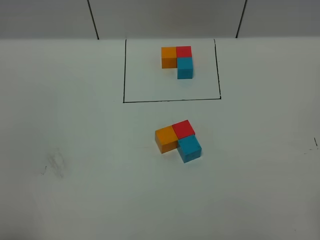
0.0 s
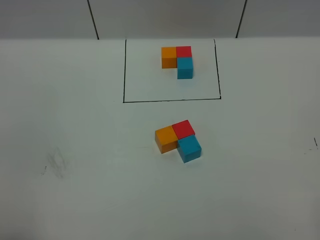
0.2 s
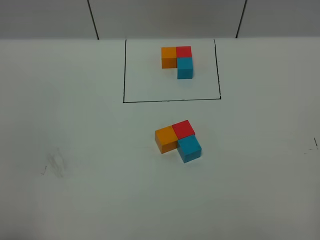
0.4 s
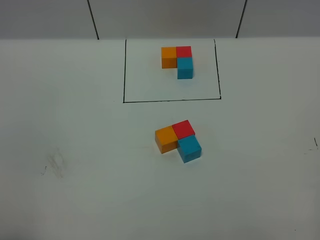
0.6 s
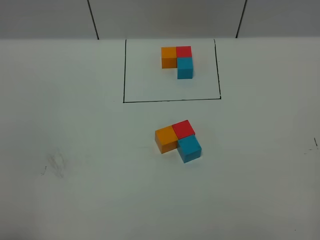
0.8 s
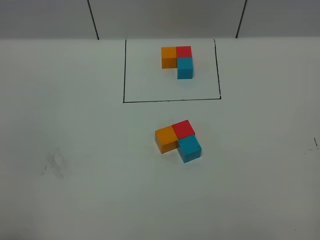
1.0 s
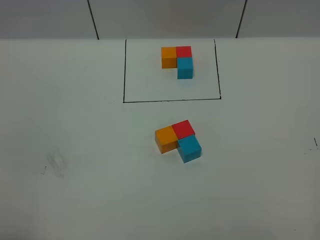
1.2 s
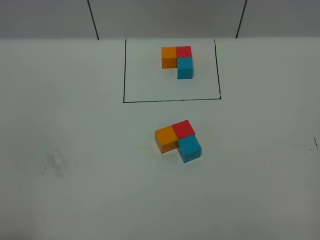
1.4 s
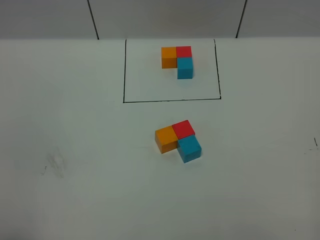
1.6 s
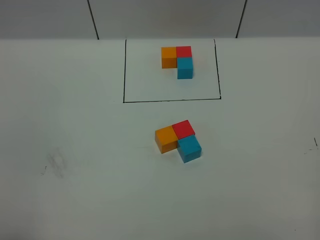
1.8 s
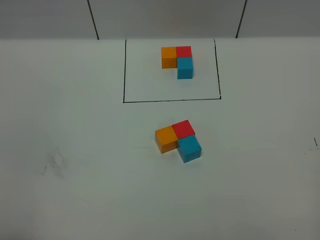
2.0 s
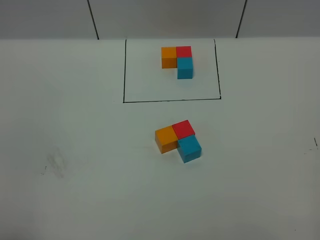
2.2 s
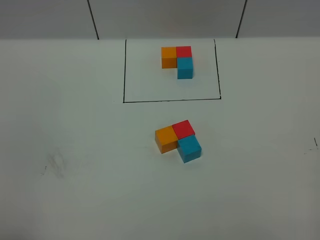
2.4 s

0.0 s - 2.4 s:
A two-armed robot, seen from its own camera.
Task of the whole recording: According to the building block template in front, assemble the scattered blocks together.
1.2 s - 2.4 s: Both grippers stay put.

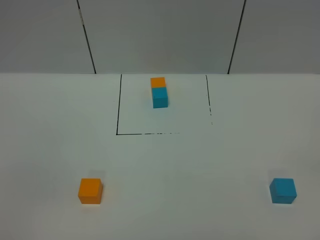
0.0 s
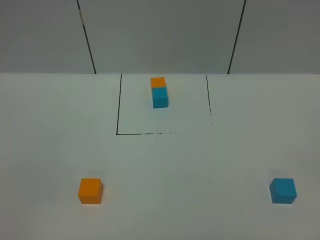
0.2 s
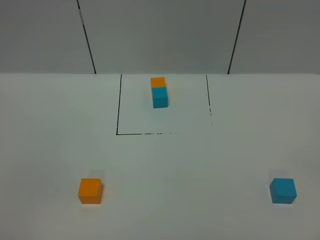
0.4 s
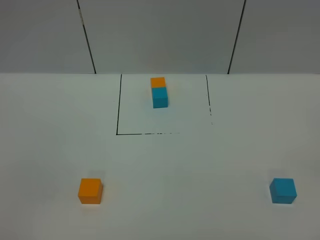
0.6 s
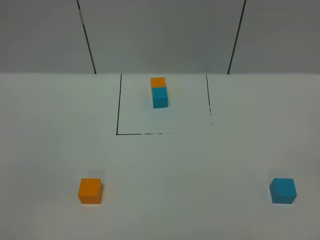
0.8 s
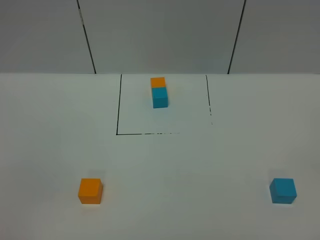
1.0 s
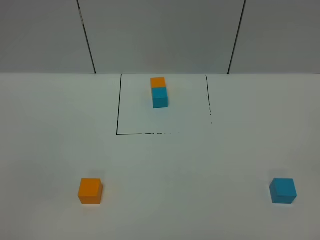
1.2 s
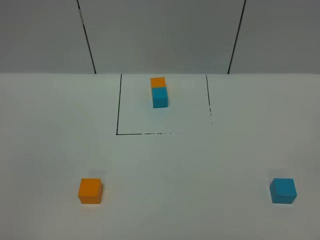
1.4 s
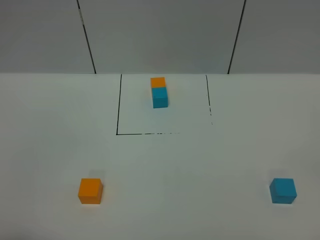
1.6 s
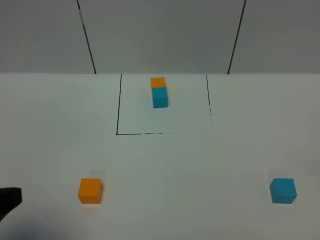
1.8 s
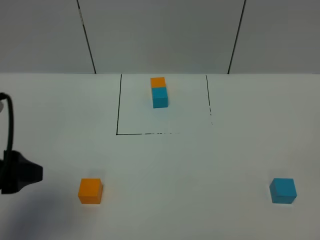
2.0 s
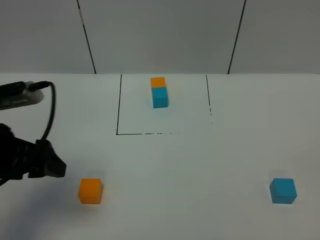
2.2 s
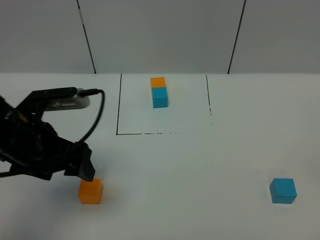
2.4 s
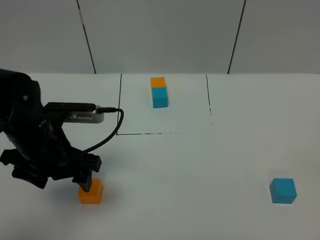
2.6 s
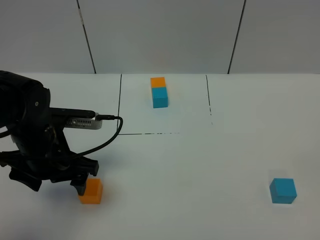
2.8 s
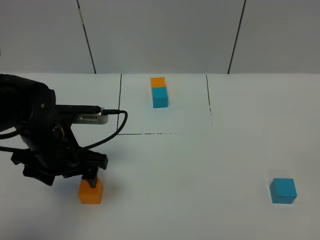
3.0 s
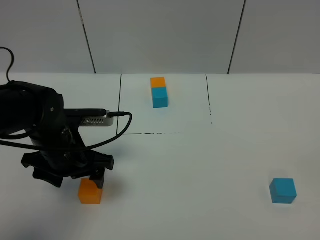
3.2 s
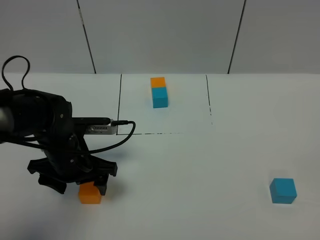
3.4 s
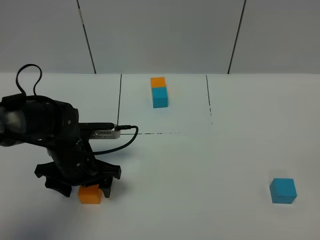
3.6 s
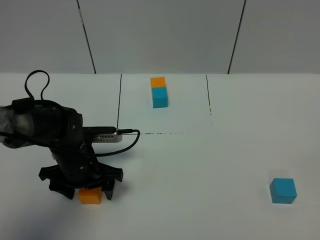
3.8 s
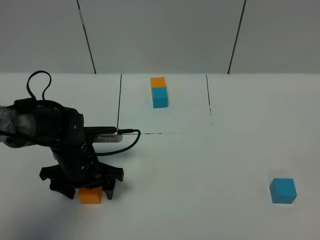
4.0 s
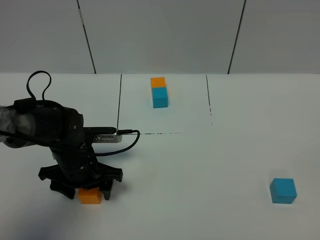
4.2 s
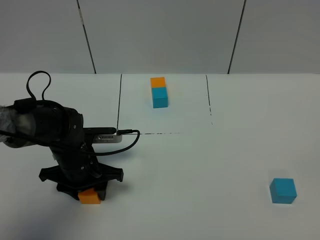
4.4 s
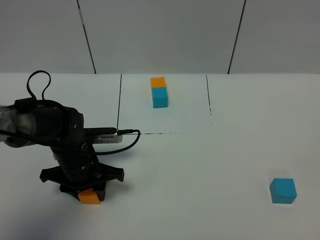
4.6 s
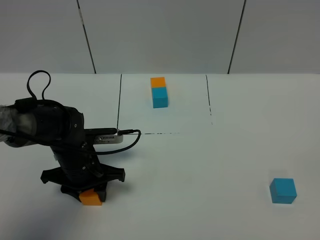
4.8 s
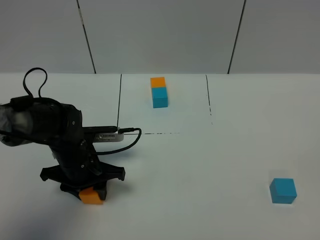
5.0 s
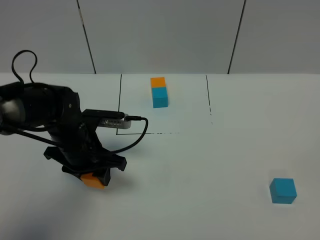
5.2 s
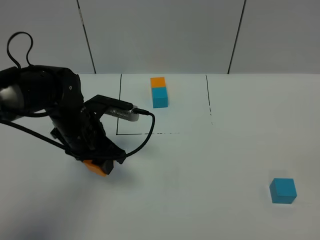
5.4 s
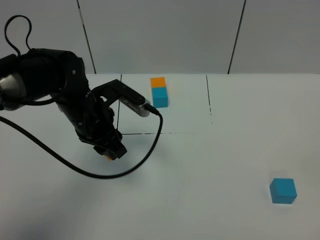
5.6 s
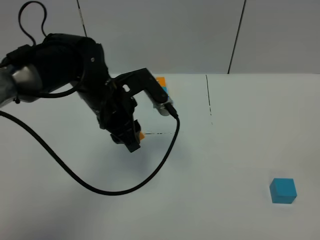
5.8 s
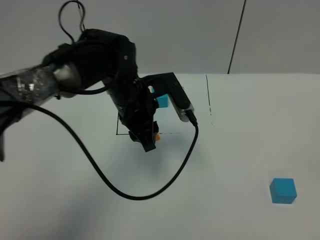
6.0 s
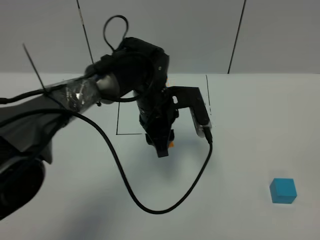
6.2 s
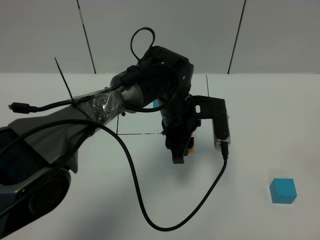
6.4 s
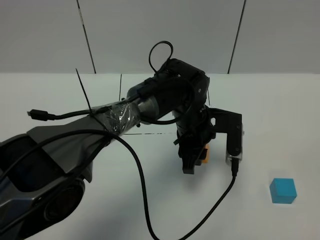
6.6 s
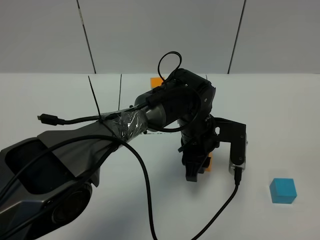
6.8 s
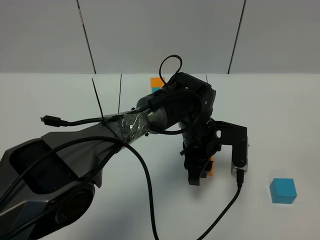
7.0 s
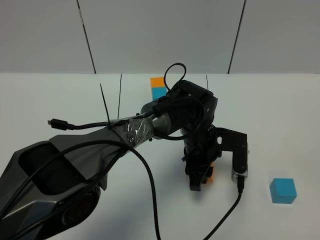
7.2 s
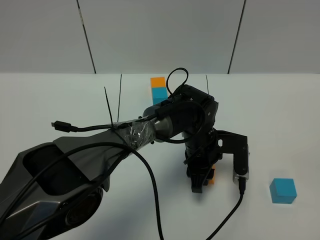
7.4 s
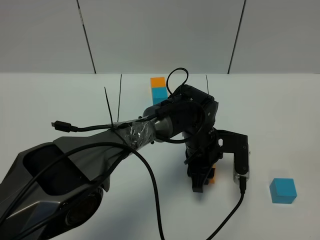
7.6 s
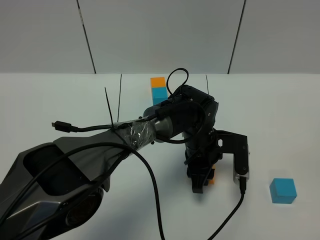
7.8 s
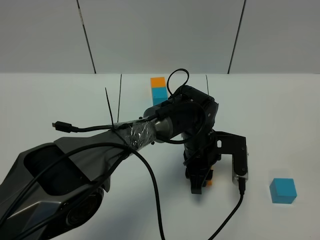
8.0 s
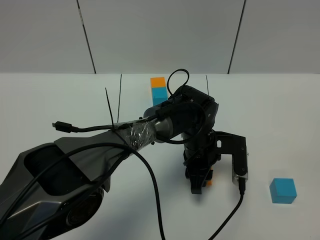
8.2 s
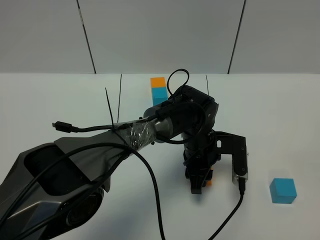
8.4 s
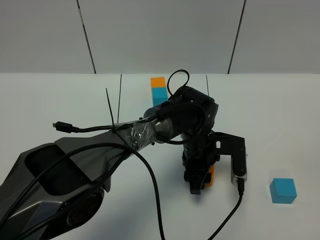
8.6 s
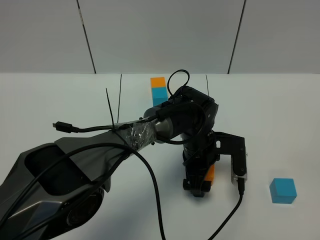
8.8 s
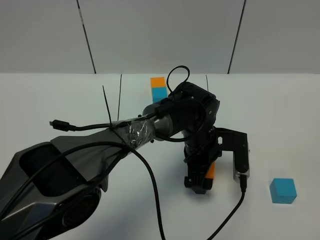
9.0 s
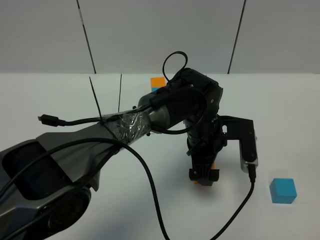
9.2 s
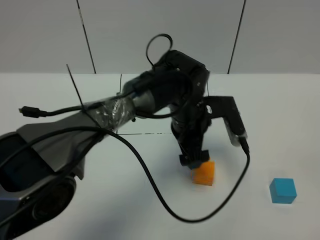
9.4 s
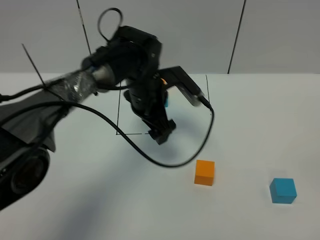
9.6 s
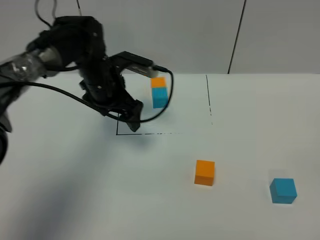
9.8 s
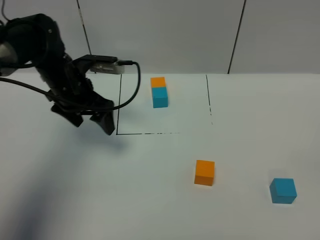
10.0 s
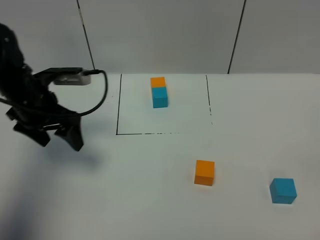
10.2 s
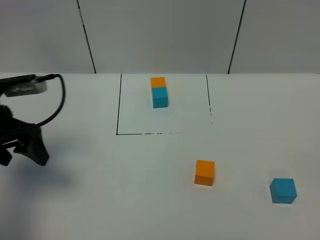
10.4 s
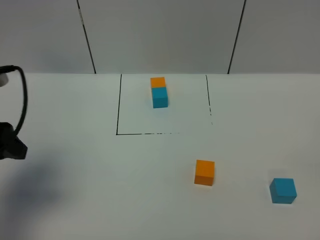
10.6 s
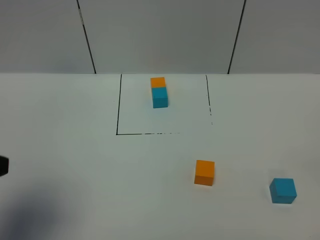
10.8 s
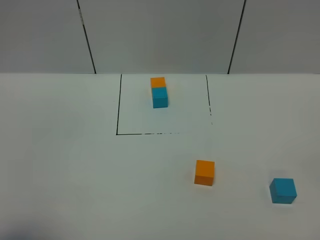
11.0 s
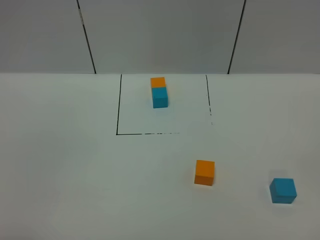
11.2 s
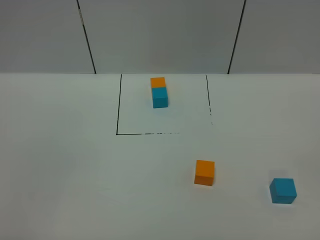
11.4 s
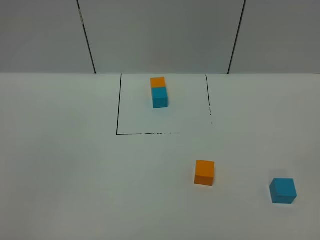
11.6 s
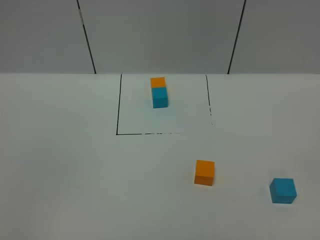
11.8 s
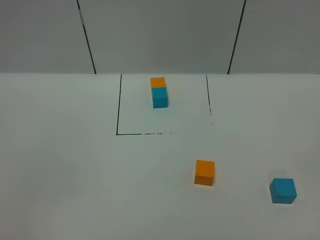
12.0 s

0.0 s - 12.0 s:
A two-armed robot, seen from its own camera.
Task of the whole recording: According to the building block template in front, assemble the scattered blocks together.
Step, 1.8 s - 9.4 s: Put the orange cube in the center of the table.
1.6 s - 3.0 s: The left gripper moves forward, downward and to the right, roughly 30 cm.
3.0 s - 4.4 s: The left gripper travels downward by approximately 10 cm, and closes up.
4.4 s - 6.0 s: The left gripper is displaced to the right, upward and forward by some 15 cm.
6.0 s - 7.6 s: The left gripper moves to the right and downward, about 15 cm.
7.6 s - 9.0 s: The left gripper opens.
9.0 s - 10.4 s: The left gripper heads to the left, covering approximately 35 cm.
10.4 s - 12.0 s: The left gripper goes approximately 30 cm backward.

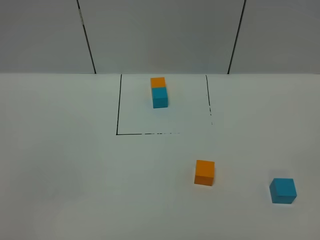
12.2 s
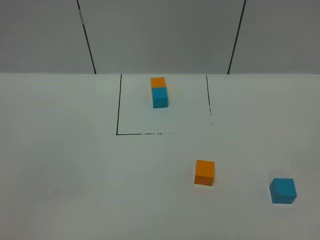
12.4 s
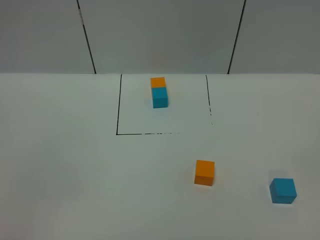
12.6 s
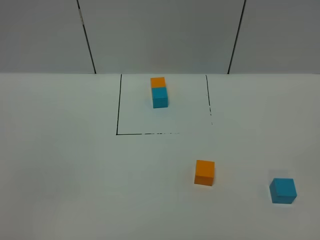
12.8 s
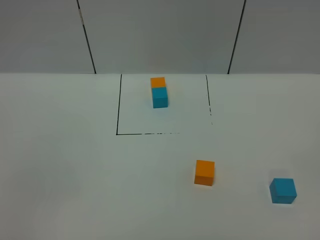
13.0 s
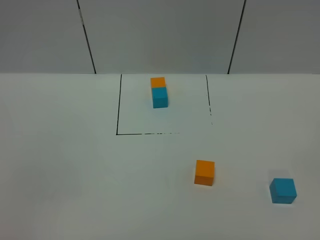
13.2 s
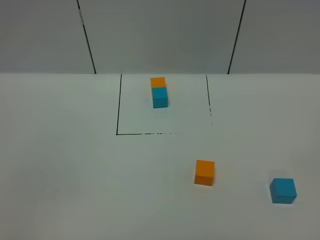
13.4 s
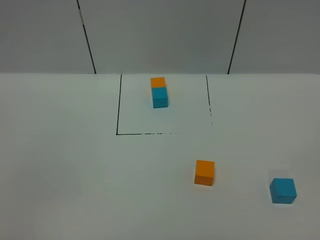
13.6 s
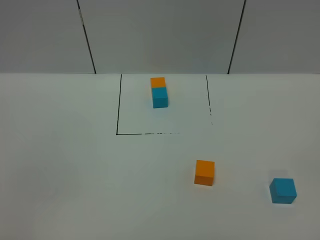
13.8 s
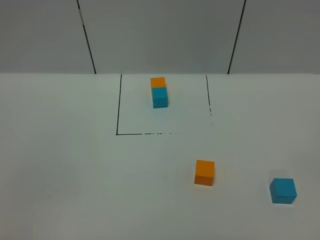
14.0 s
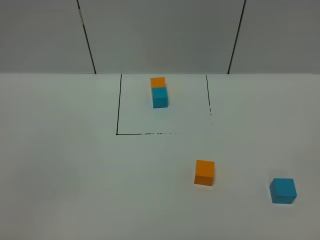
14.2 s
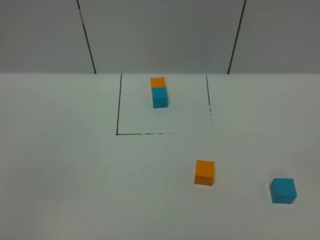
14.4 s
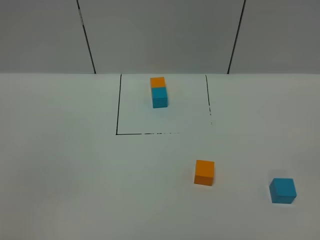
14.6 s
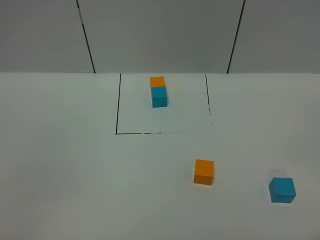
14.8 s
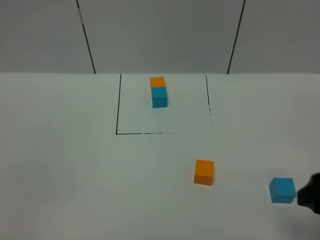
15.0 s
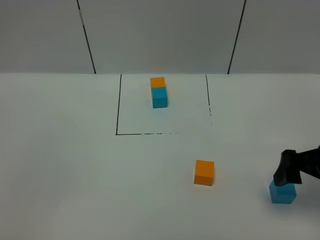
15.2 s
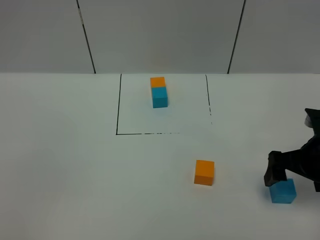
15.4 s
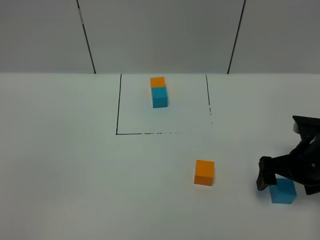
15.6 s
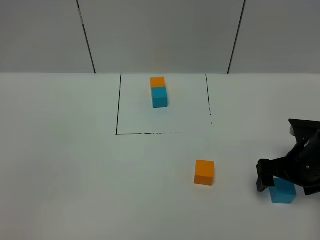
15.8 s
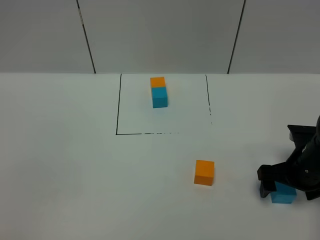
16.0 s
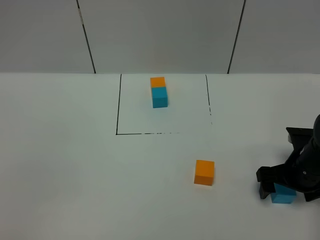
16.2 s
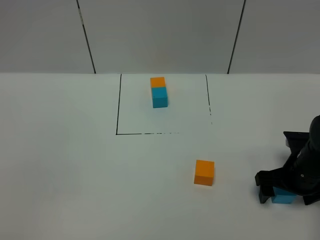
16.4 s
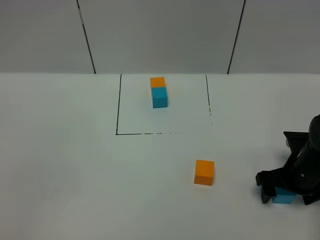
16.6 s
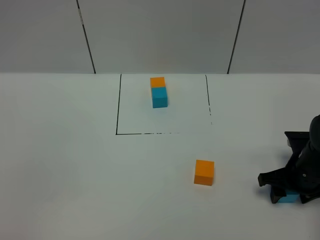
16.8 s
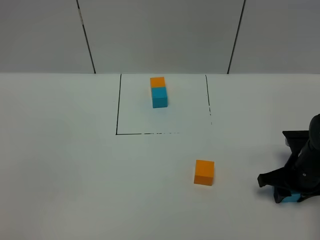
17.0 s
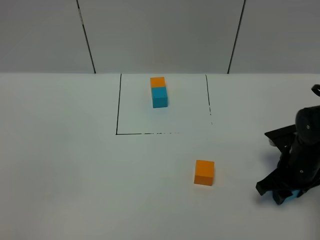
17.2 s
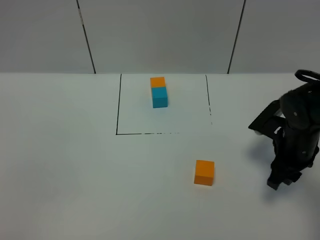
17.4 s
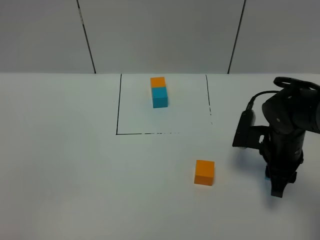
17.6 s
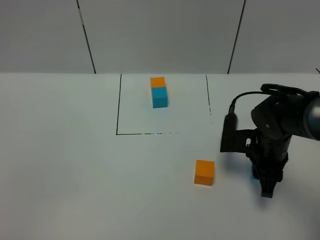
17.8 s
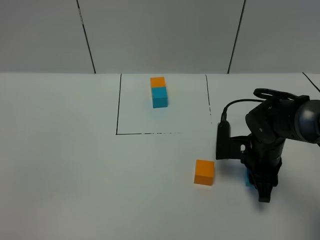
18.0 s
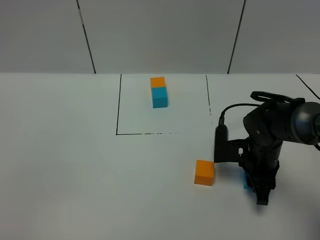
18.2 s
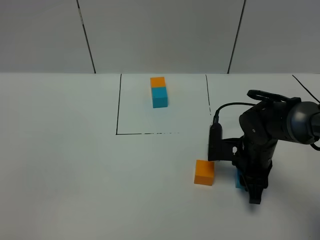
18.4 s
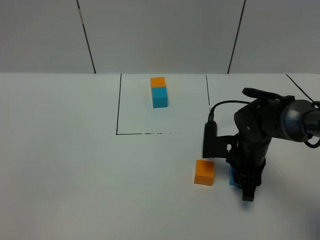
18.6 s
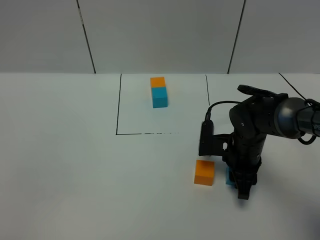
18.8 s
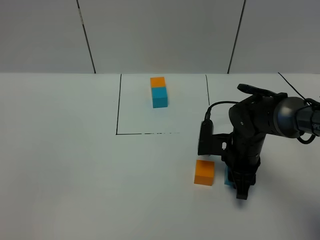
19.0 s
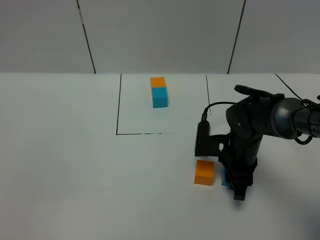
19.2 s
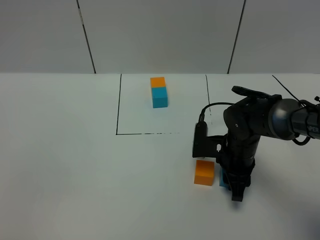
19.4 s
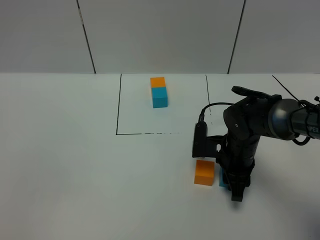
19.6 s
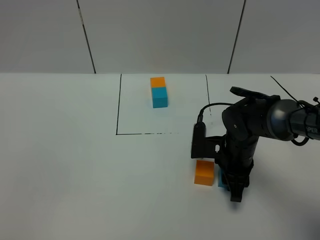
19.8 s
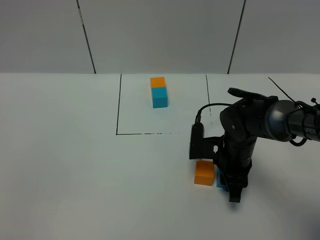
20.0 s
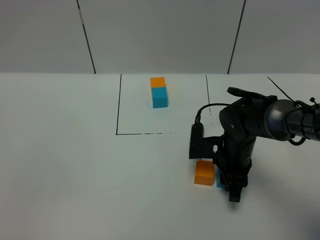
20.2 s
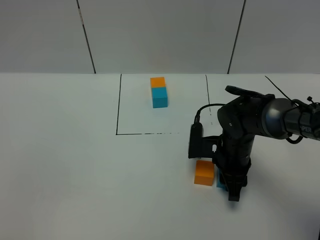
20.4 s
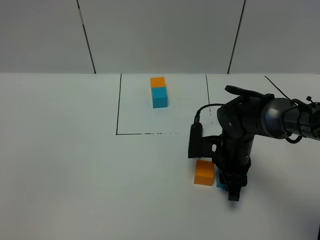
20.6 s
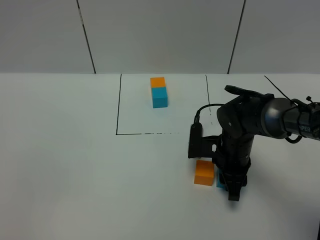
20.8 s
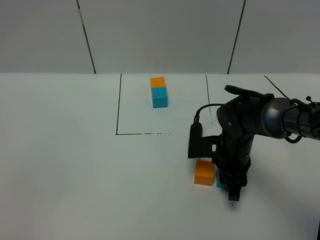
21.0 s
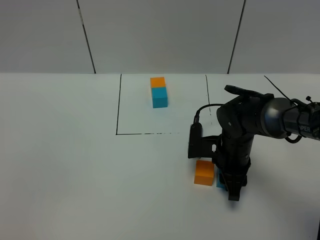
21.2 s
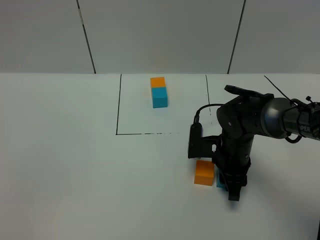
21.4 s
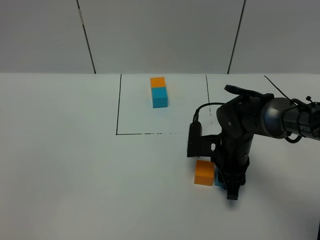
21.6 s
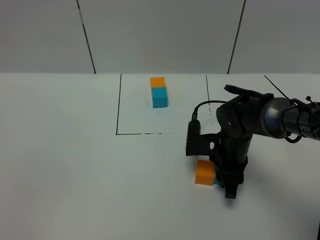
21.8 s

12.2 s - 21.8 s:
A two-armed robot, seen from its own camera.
Task of the whole recording: According to the building block template in front, assemble the scattered blocks together.
13.8 s - 15.4 s: The right gripper moves forward, about 30 cm.
15.4 s - 17.0 s: The right gripper travels downward by roughly 10 cm, and closes its fingers.
17.0 s - 18.6 s: The right gripper is displaced to the left by approximately 10 cm.
18.6 s - 20.2 s: The grippers stay close to where they were, moving slightly.
20.2 s - 21.8 s: Both grippers stay about where they are.
